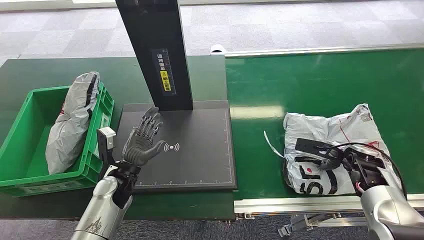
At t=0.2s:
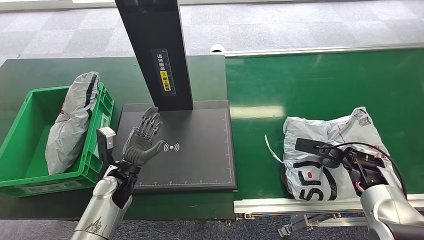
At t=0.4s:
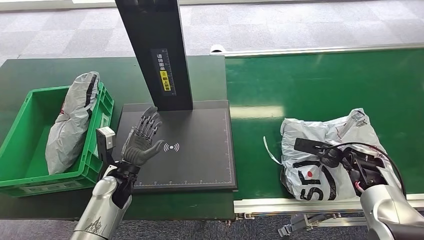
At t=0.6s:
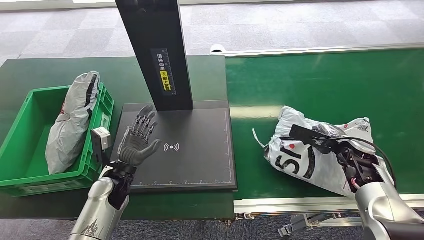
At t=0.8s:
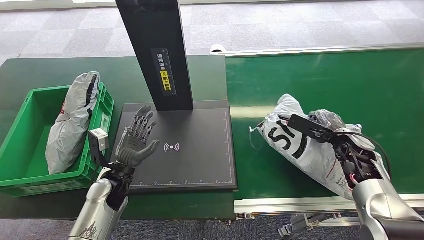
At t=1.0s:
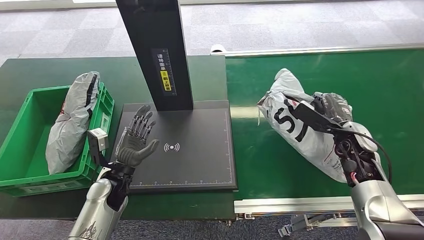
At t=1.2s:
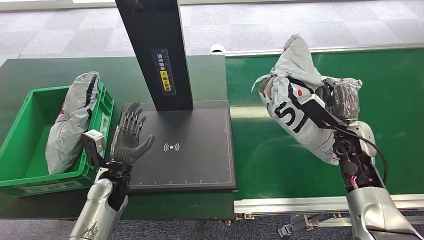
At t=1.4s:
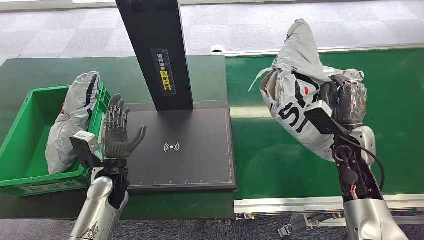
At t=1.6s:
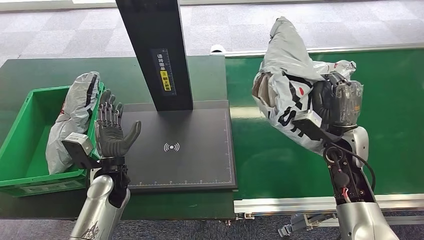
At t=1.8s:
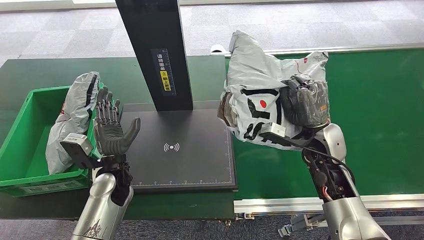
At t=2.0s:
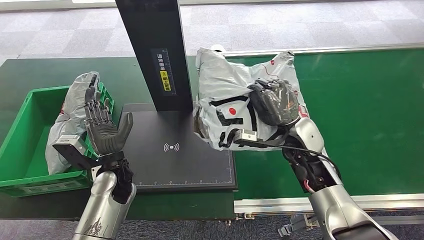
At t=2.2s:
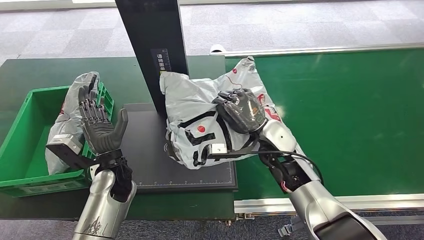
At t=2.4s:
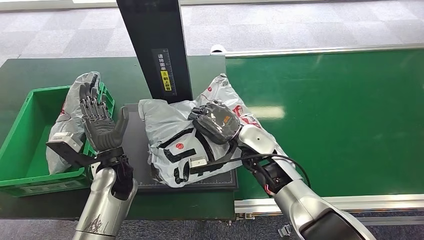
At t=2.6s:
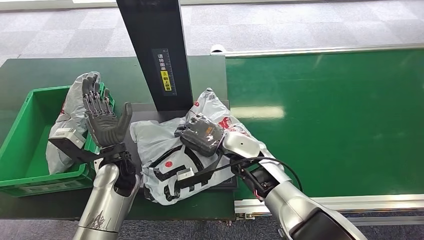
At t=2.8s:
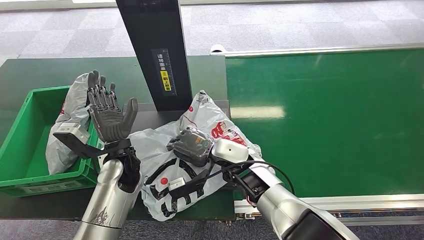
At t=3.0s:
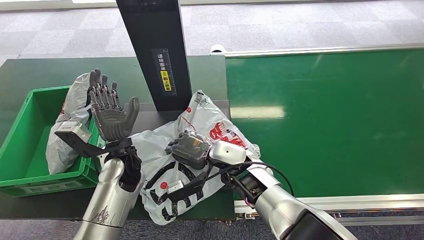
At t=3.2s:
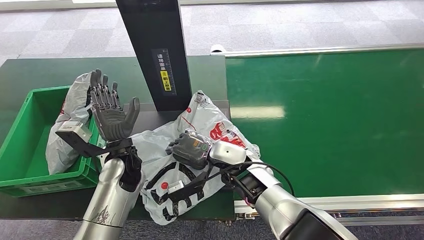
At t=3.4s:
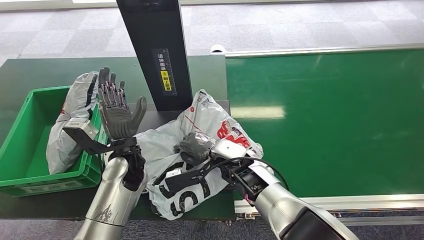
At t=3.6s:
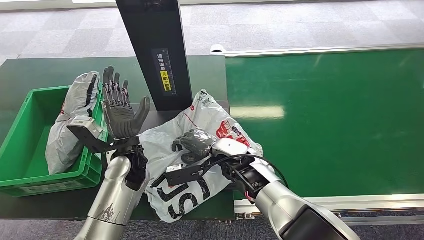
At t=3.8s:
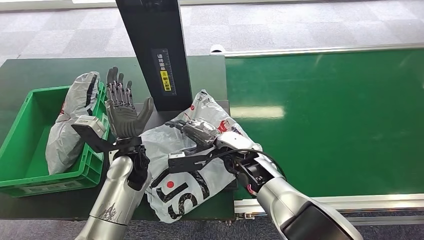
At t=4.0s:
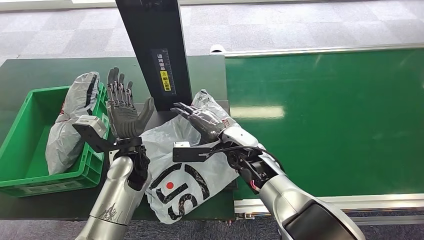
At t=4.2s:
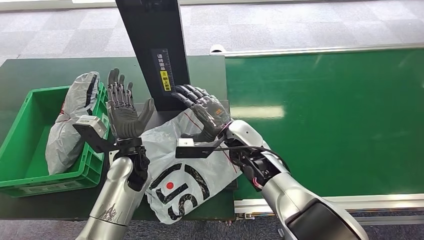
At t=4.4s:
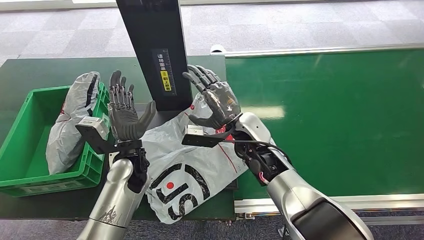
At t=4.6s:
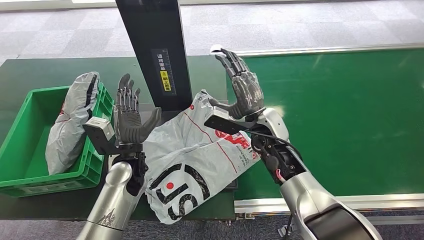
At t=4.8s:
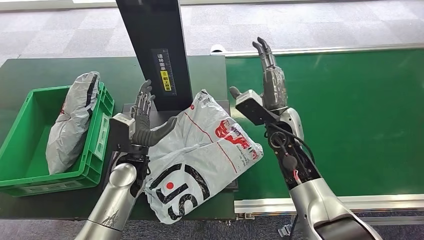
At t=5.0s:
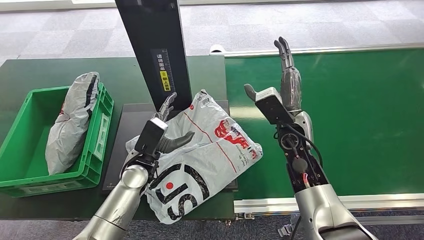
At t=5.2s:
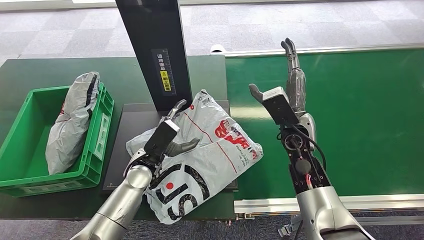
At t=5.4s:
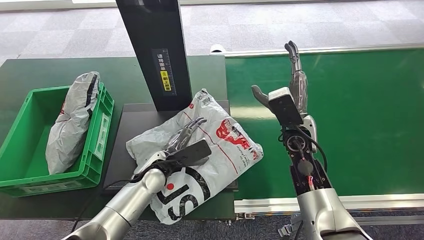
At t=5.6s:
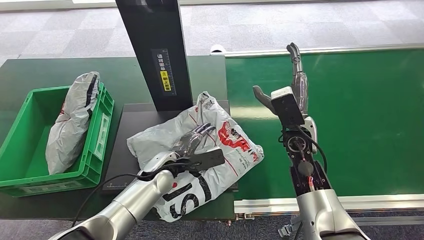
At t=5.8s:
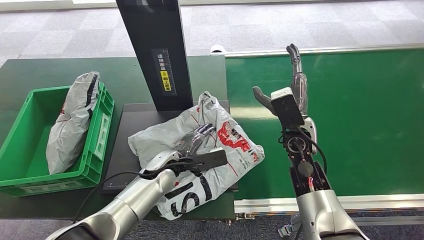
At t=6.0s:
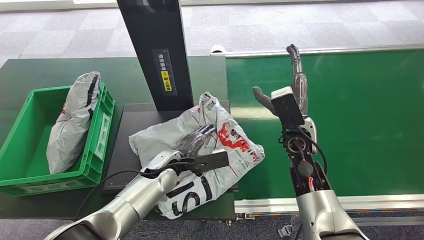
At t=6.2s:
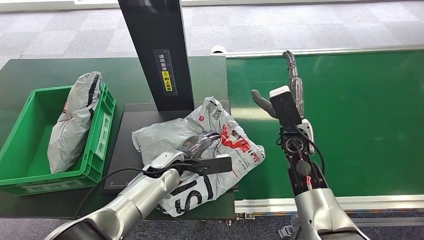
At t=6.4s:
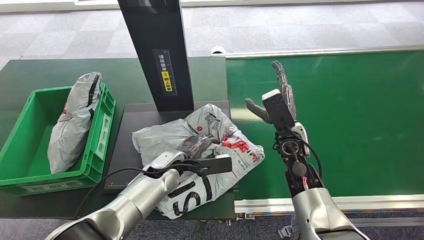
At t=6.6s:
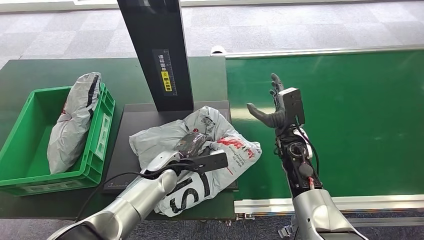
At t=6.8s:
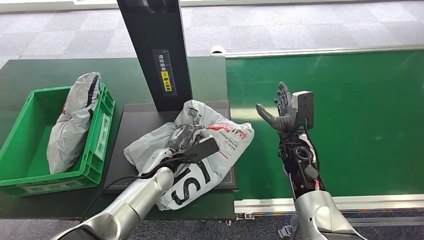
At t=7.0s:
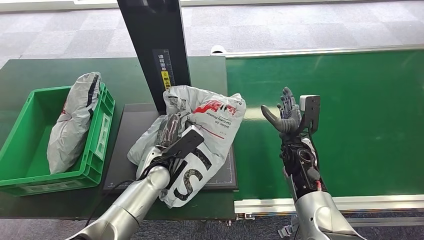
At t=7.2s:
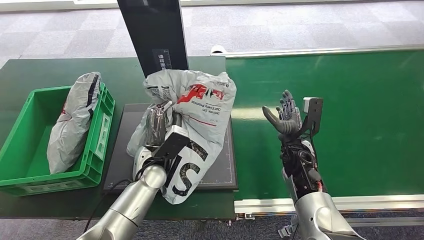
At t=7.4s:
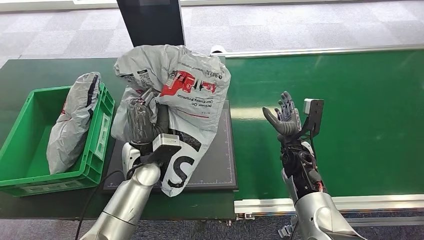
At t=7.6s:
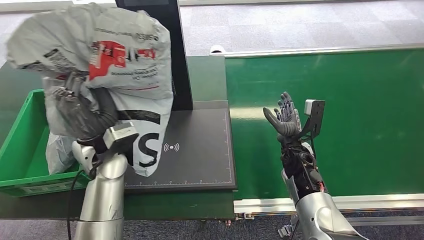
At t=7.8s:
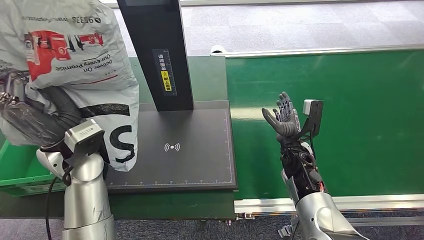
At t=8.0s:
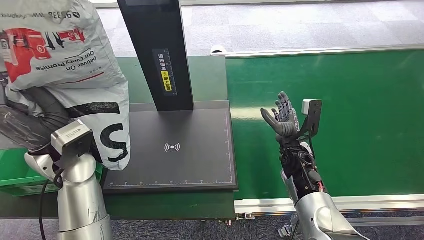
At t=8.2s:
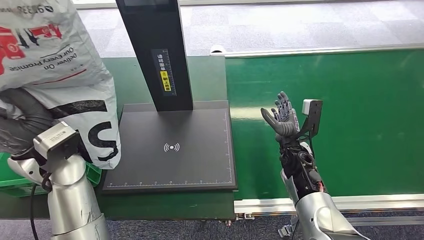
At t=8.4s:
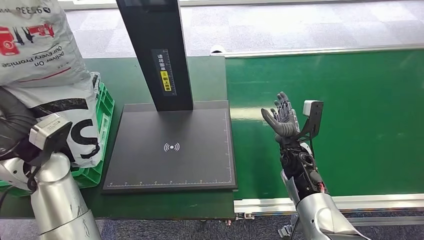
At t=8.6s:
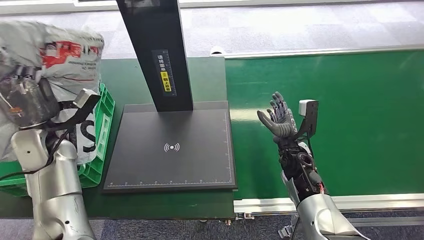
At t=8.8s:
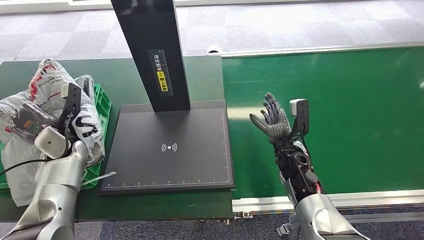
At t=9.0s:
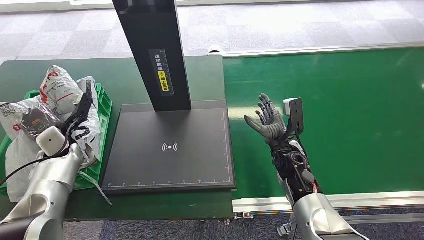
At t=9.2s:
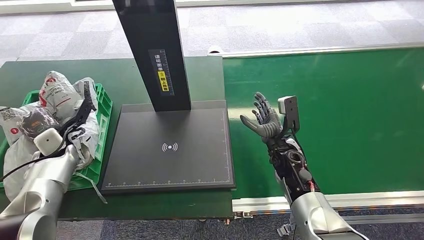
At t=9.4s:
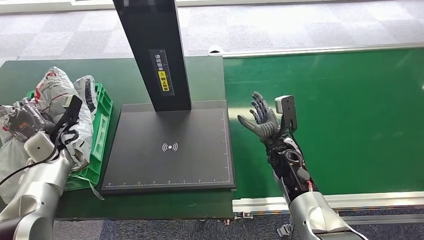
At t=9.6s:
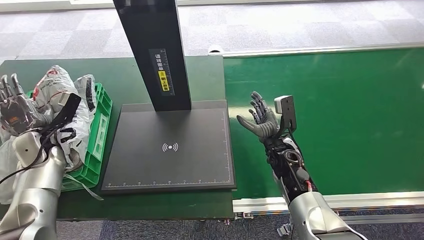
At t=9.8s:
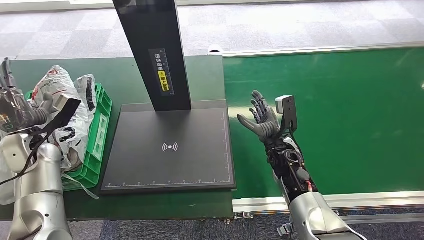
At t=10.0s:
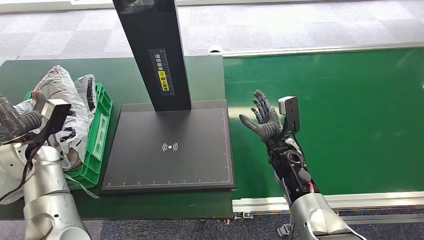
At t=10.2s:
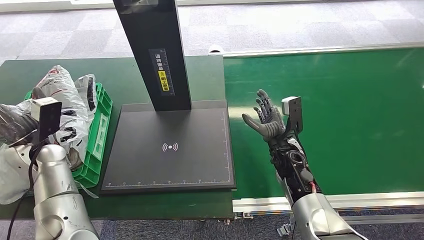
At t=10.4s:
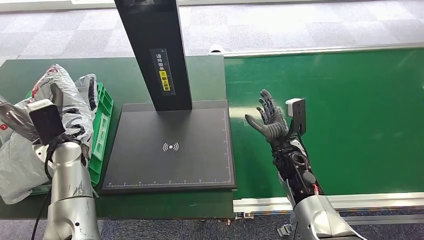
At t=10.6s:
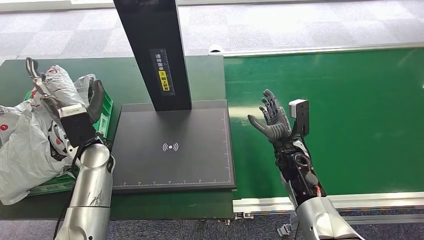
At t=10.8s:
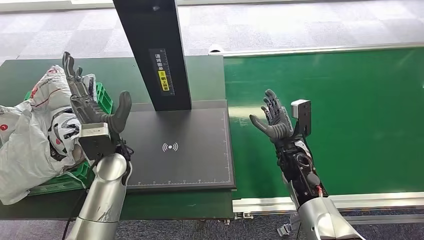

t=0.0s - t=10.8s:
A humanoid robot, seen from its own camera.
Step, t=0.0s - t=2.0s: Pick up the package from the conveyor belt.
Step, t=2.2s - t=4.2s: Place the package onto the inbound machine.
Step, t=4.4s - t=7.8s: Pick up the package from the inbound machine.
Step, t=8.0s - t=10.6s: Place the package into the parcel locker.

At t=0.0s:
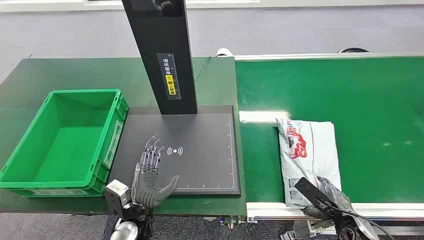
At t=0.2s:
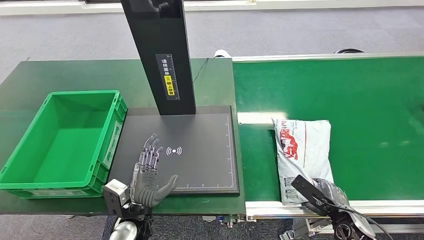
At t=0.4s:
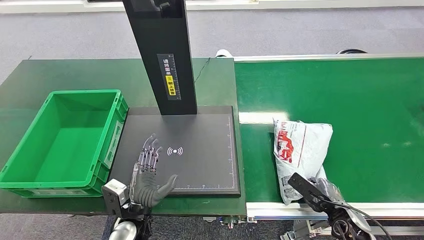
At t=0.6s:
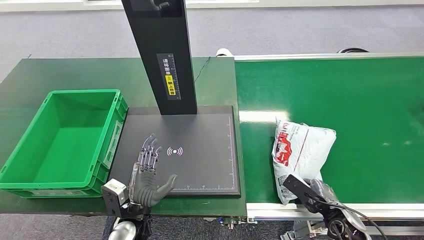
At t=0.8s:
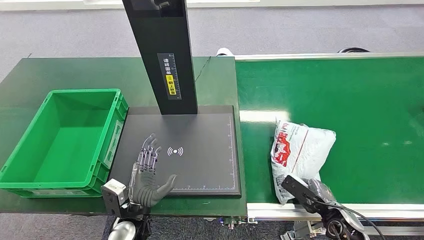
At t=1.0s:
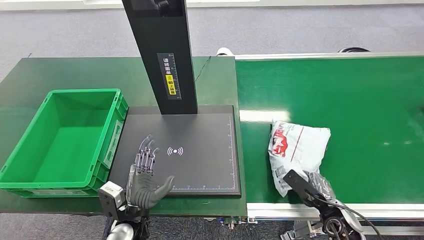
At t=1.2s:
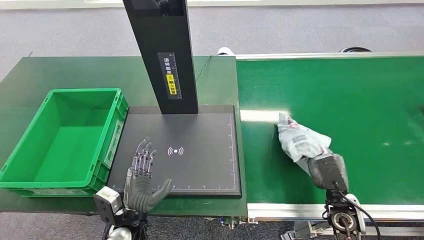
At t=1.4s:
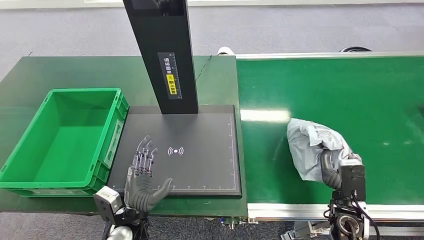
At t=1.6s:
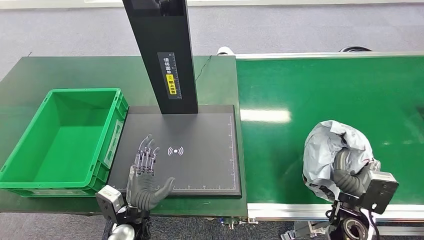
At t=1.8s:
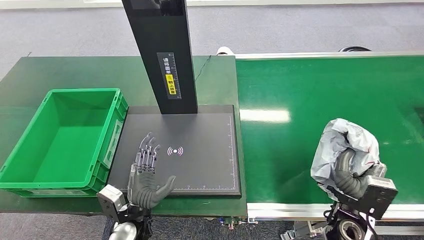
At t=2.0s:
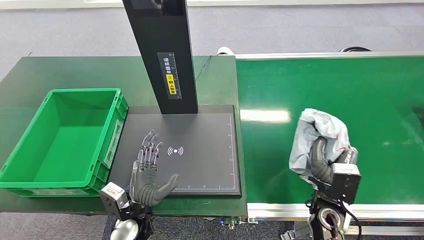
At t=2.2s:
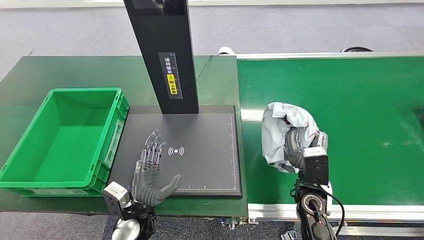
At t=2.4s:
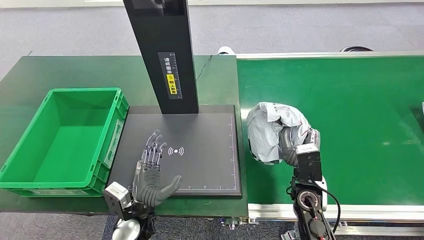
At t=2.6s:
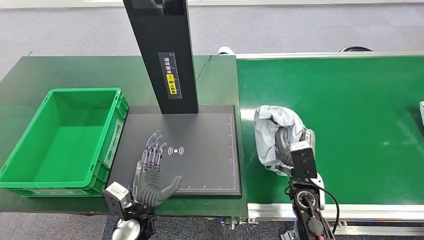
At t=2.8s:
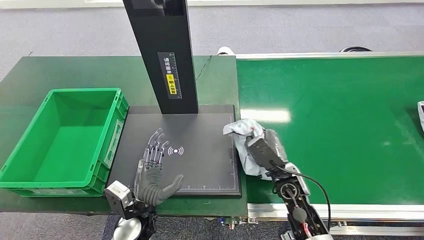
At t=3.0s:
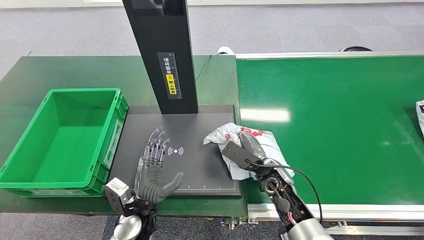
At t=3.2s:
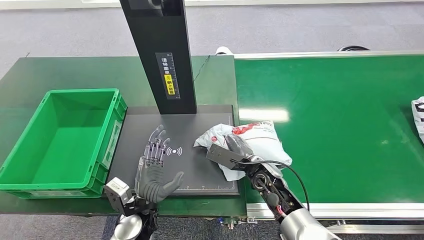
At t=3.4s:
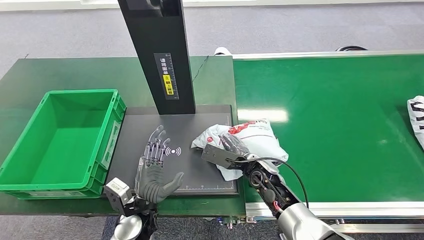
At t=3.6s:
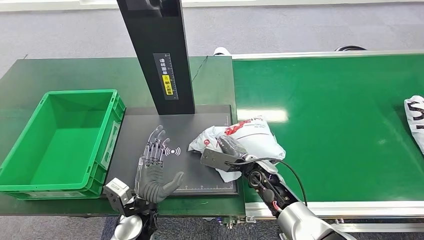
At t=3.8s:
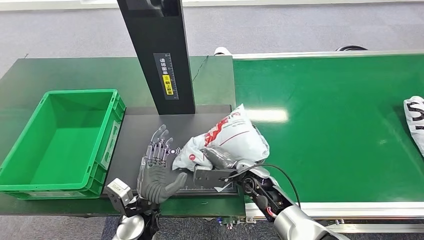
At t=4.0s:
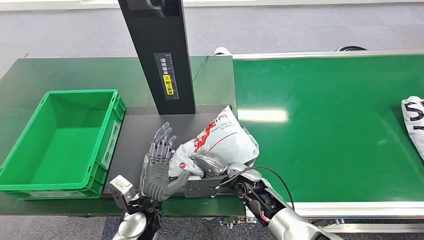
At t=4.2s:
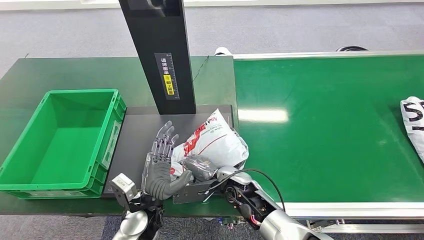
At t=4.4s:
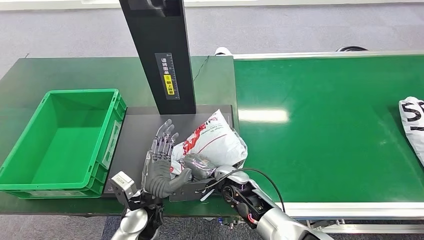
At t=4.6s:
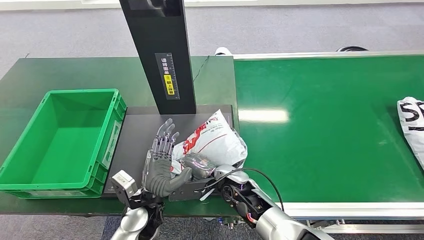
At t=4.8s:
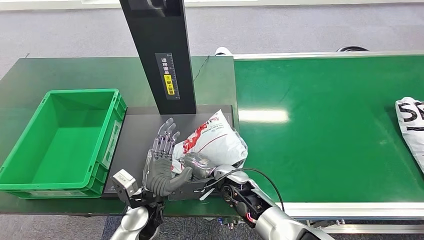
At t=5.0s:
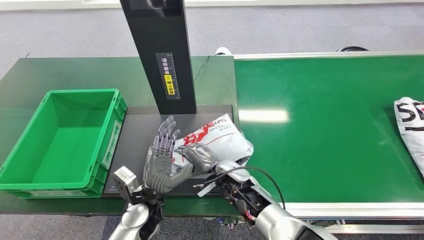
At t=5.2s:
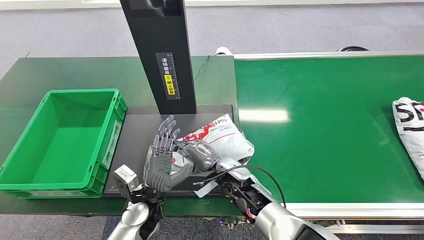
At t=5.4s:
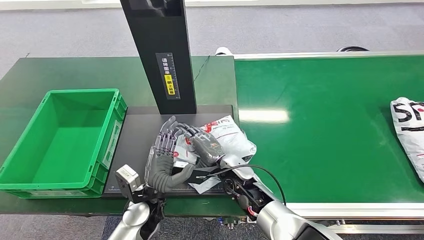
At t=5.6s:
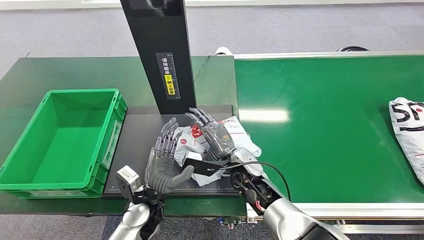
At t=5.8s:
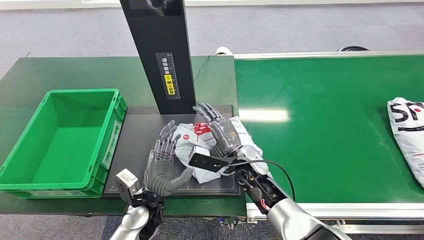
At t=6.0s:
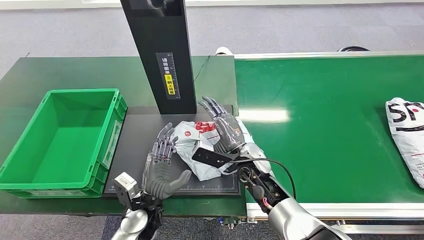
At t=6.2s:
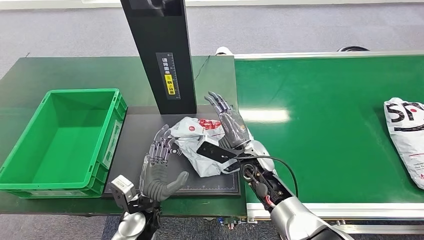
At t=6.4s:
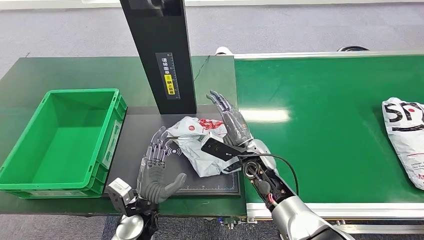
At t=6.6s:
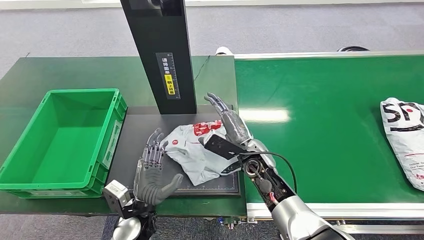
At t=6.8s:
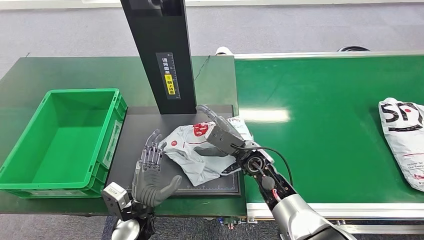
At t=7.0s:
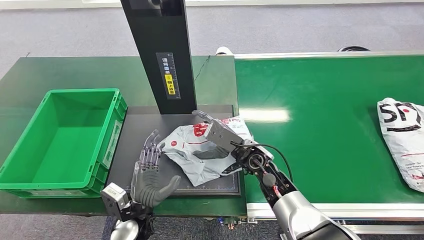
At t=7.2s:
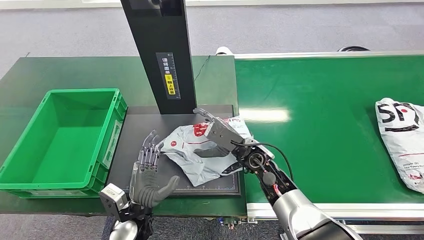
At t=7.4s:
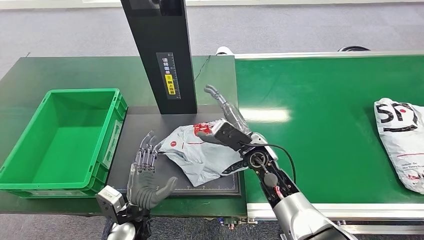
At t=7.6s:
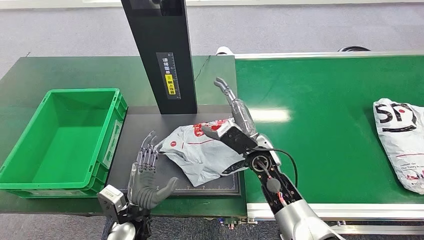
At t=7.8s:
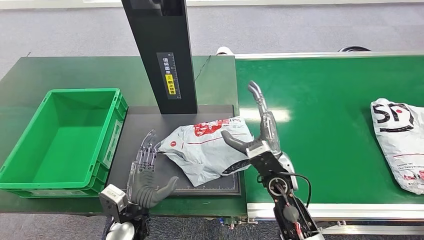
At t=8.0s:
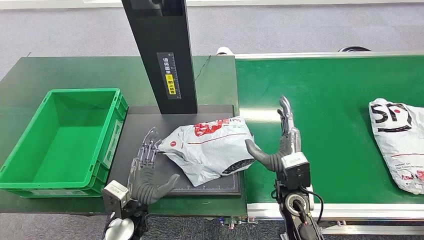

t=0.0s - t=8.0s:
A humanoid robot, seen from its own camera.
Step, t=0.0s - t=1.2s: Pick up the package from the conveyor belt.
Step, t=1.4s - t=6.6s: Place the package onto the inbound machine.
t=3.2s - t=4.8s: The right hand moves to the left, about 10 cm.
t=4.8s - t=6.4s: The right hand is displaced to the right by some 5 cm.
t=6.4s - t=8.0s: The right hand shifts roughly 10 cm backward and to the right.
